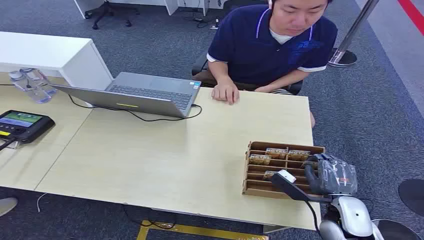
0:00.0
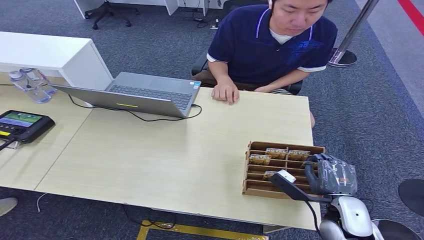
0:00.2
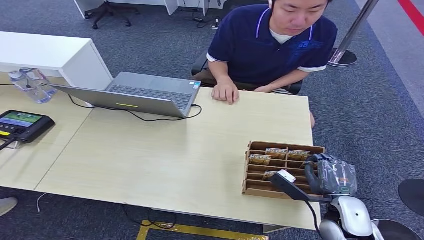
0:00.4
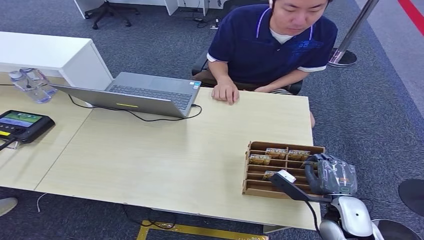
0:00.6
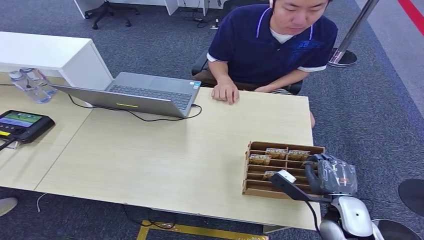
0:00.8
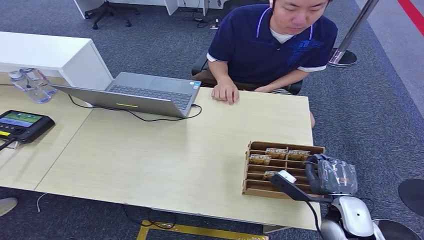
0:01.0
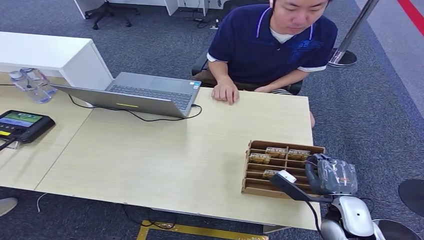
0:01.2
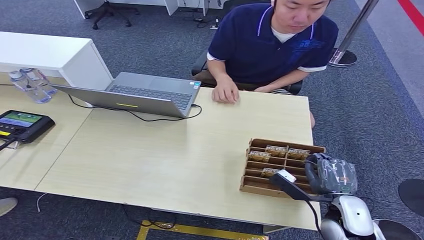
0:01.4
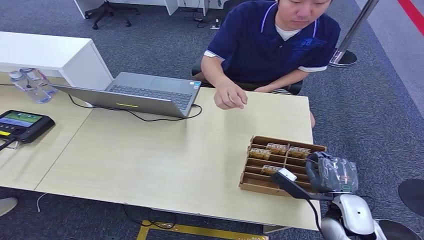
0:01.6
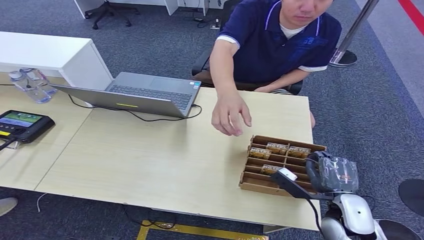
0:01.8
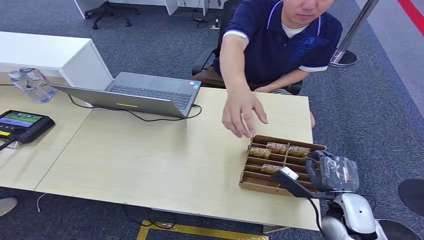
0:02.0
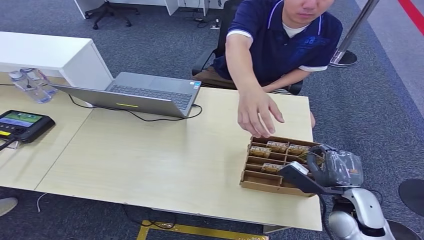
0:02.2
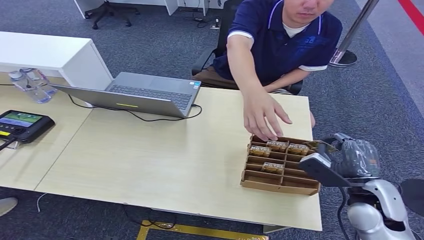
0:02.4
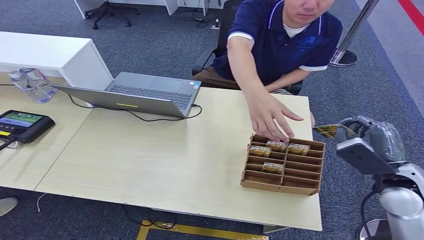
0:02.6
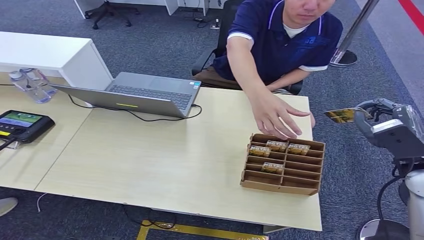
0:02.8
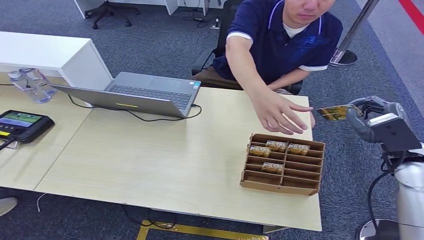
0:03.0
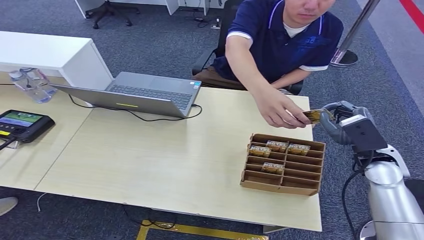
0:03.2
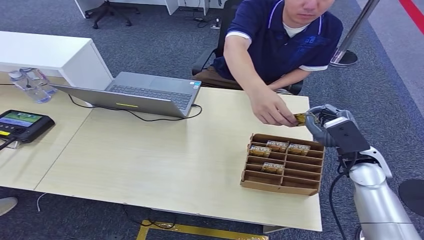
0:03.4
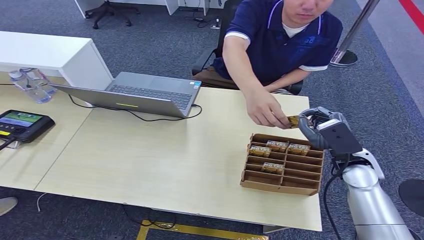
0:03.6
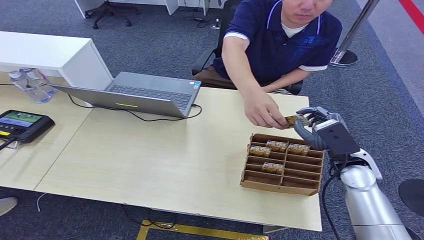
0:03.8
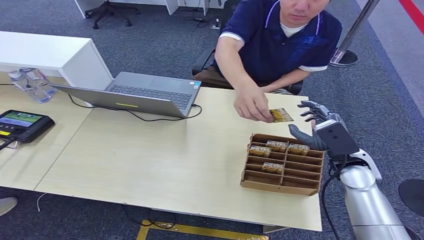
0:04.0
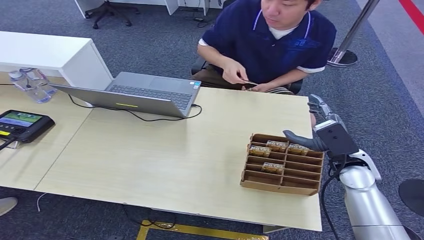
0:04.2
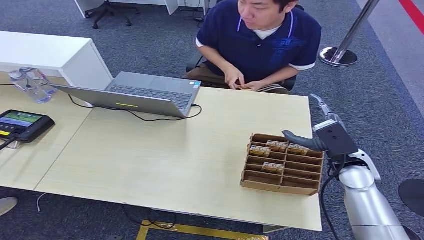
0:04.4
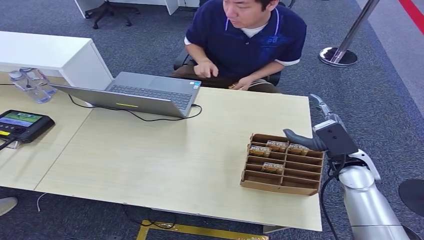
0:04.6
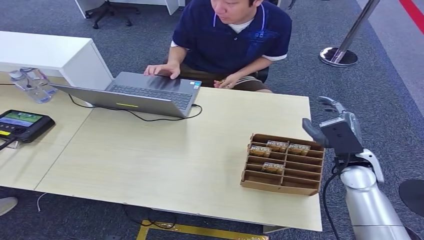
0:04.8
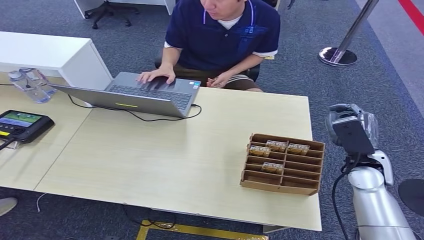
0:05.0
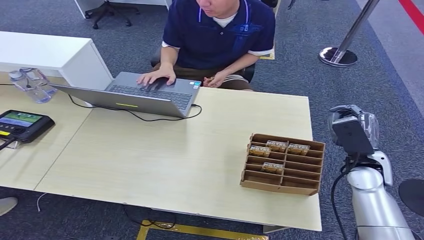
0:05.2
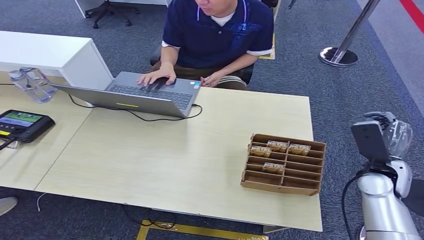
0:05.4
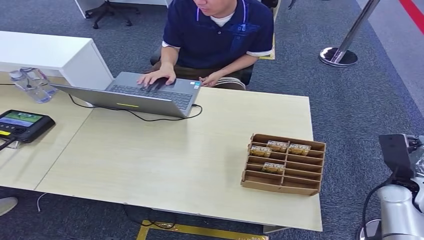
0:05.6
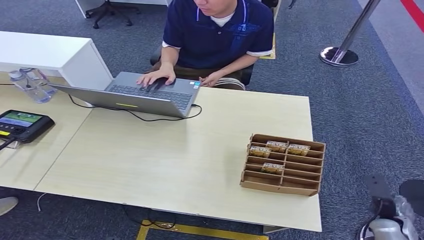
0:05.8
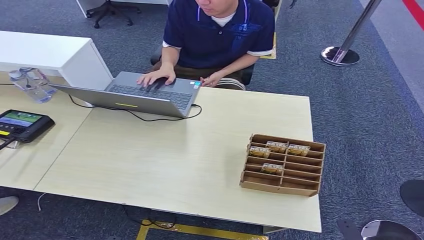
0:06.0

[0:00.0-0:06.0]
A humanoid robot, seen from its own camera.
Step, 0:00.0 to 0:02.6: Pick up the key card from the card box.
Step, 0:03.4 to 0:06.0: Hand the key card to the target.
0:01.6 to 0:03.0: The right hand moves upward, forward and to the right, about 20 cm.
0:03.0 to 0:04.4: The right hand shifts about 10 cm to the left and downward.
0:04.4 to 0:06.0: The right hand travels downward, backward and to the right by some 35 cm.
